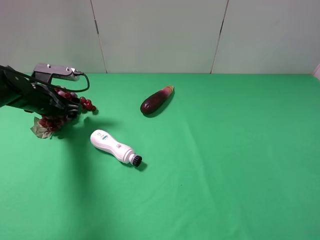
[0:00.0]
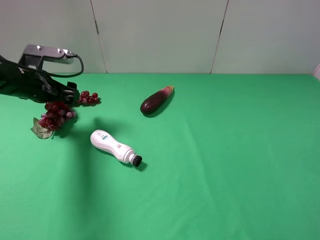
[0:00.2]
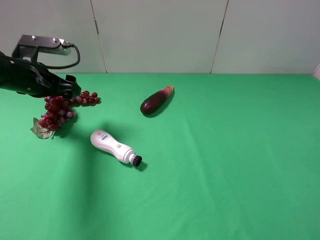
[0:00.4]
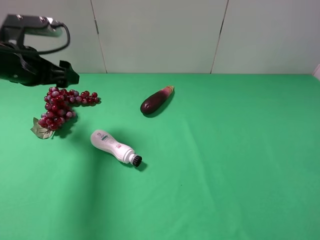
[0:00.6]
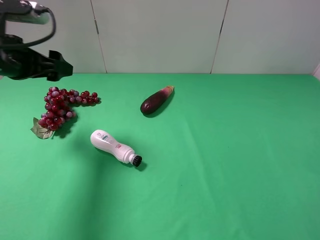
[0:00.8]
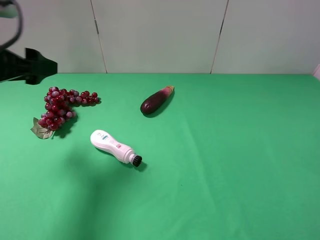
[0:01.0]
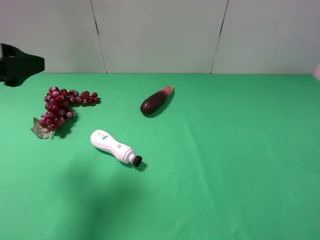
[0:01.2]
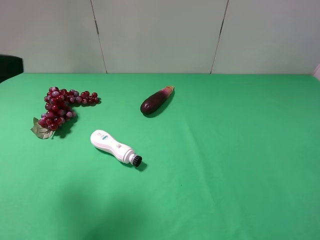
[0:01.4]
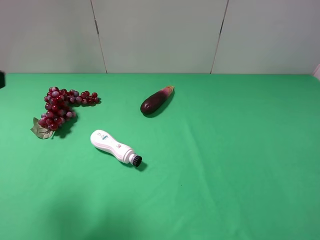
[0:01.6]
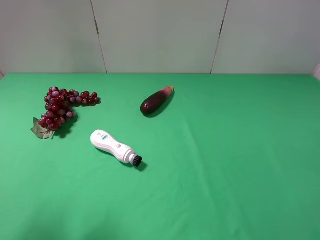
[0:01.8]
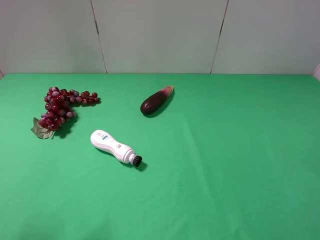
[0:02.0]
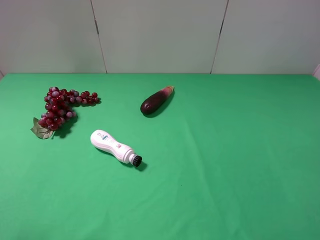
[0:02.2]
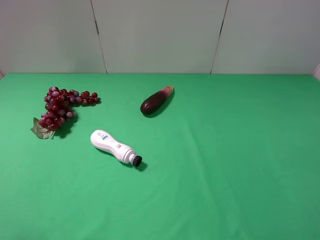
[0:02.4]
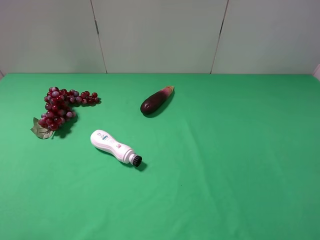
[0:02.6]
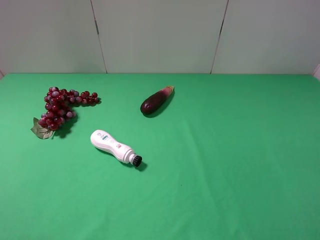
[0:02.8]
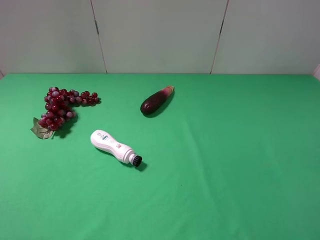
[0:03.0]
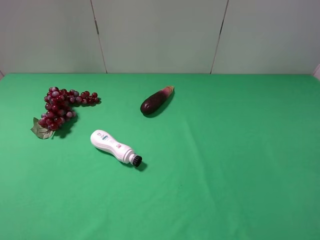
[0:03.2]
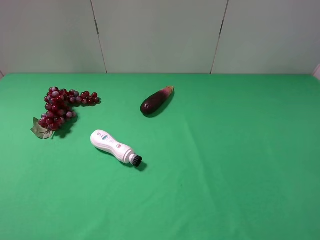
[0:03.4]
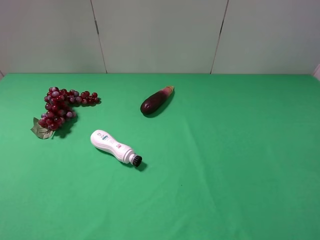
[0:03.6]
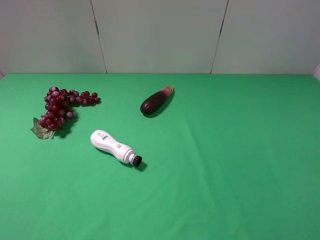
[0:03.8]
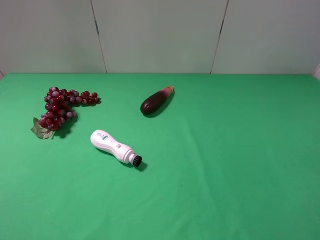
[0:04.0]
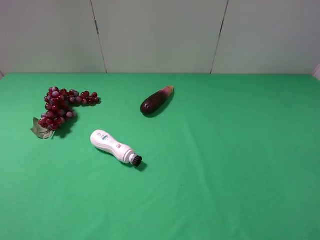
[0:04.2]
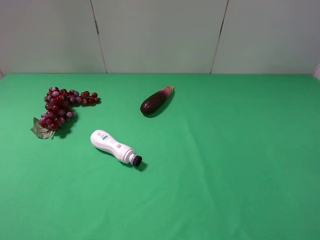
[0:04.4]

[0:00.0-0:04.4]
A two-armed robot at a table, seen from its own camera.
Task of the whole recording: use the right gripper to pick up the item and transfer it from the right gripper to the left gripper.
0:00.0 to 0:01.4: The left gripper moves backward and upward, roughly 25 cm.
0:01.4 to 0:03.0: The left gripper goes approximately 10 cm backward.

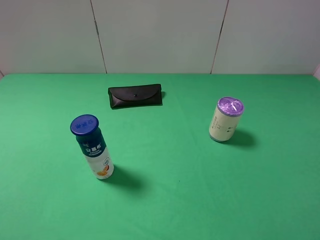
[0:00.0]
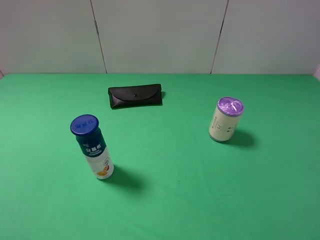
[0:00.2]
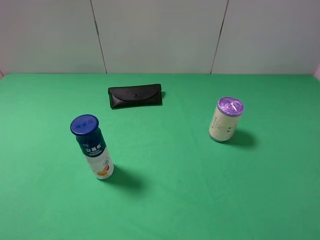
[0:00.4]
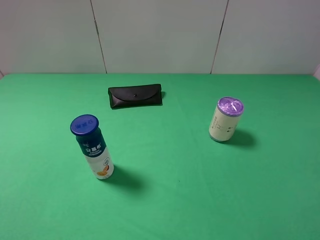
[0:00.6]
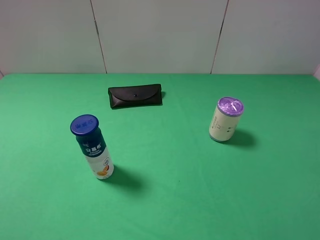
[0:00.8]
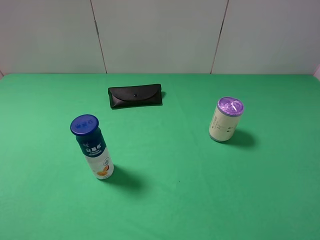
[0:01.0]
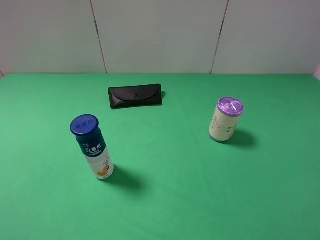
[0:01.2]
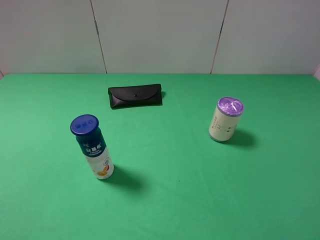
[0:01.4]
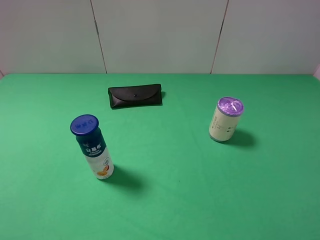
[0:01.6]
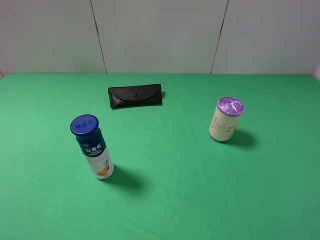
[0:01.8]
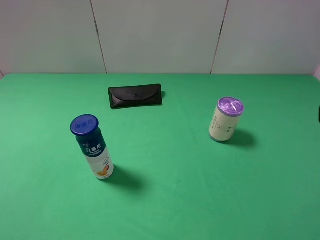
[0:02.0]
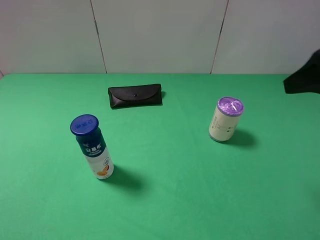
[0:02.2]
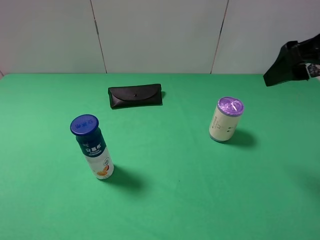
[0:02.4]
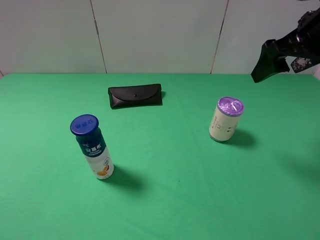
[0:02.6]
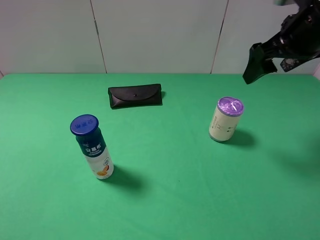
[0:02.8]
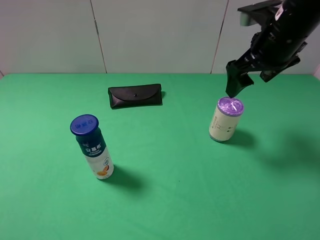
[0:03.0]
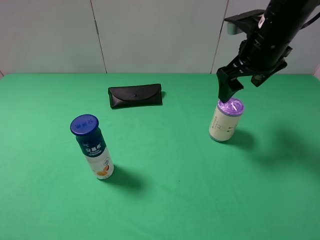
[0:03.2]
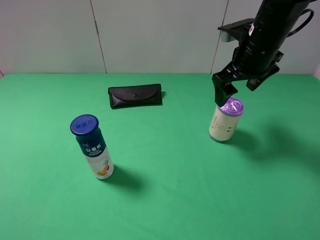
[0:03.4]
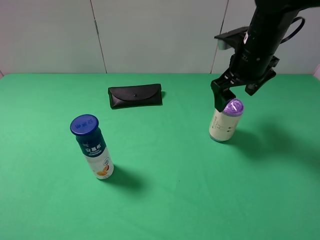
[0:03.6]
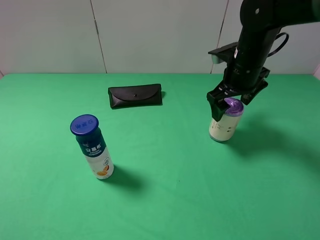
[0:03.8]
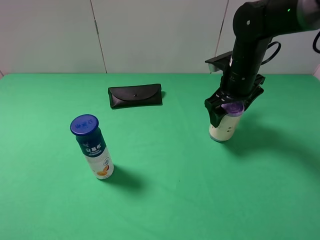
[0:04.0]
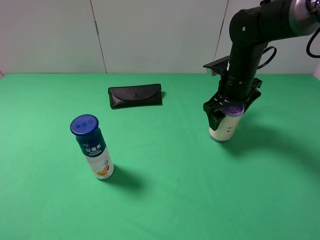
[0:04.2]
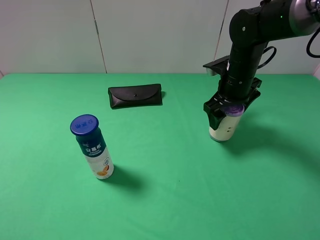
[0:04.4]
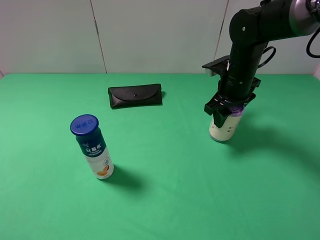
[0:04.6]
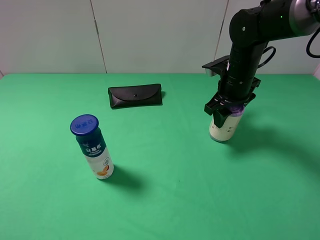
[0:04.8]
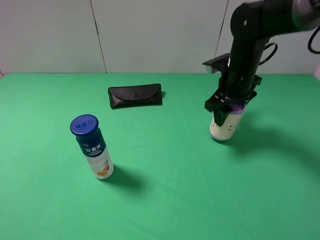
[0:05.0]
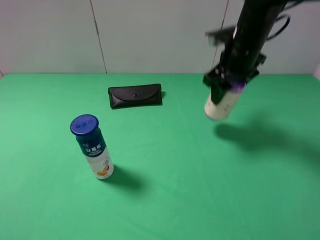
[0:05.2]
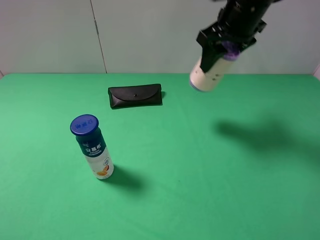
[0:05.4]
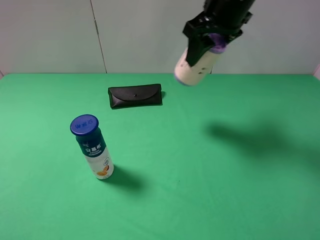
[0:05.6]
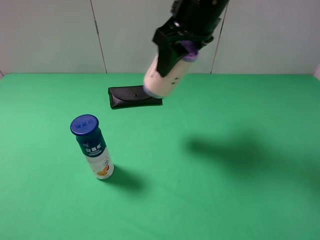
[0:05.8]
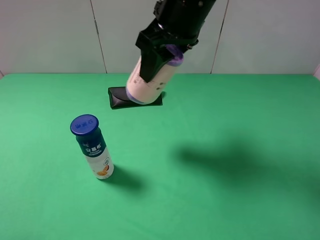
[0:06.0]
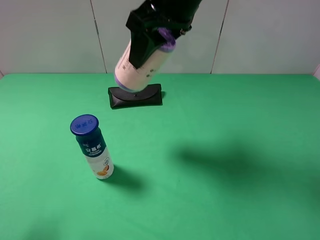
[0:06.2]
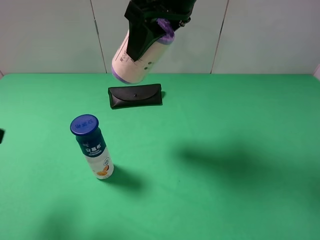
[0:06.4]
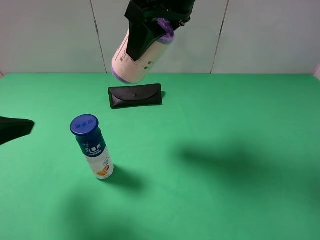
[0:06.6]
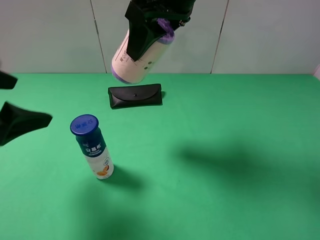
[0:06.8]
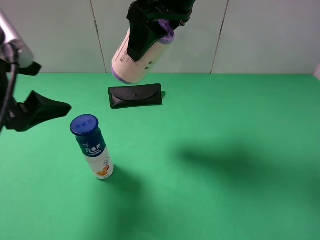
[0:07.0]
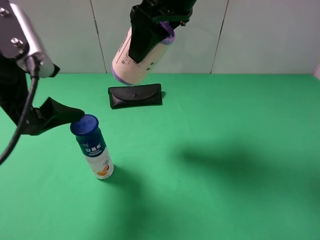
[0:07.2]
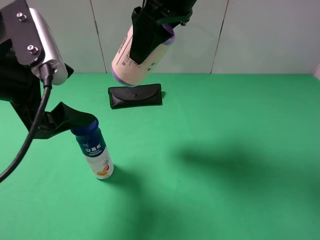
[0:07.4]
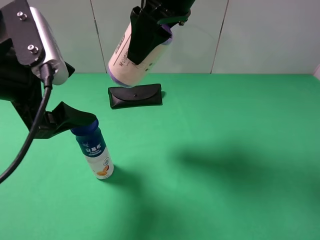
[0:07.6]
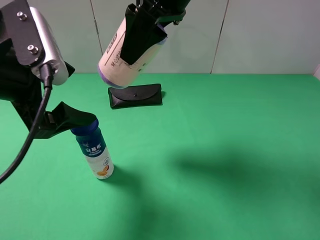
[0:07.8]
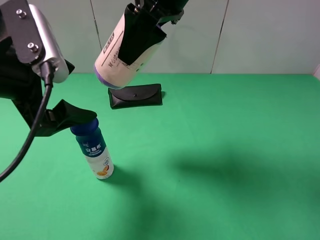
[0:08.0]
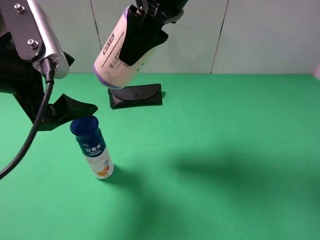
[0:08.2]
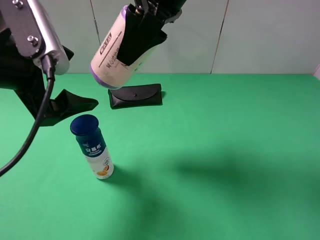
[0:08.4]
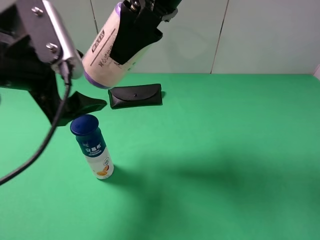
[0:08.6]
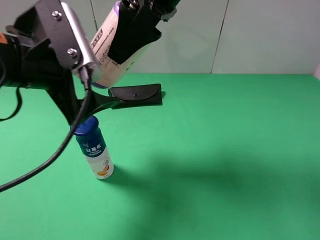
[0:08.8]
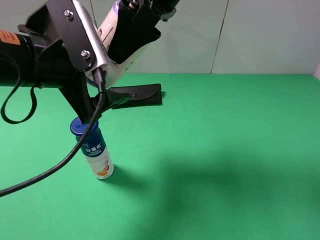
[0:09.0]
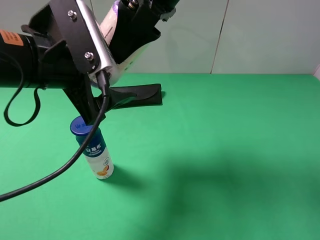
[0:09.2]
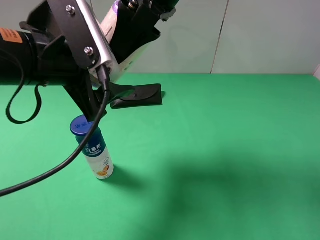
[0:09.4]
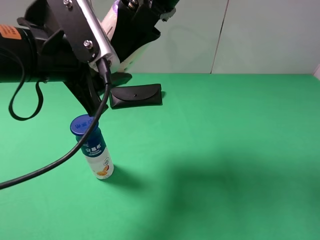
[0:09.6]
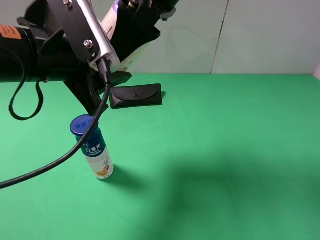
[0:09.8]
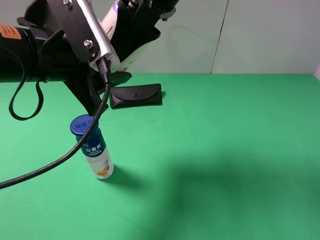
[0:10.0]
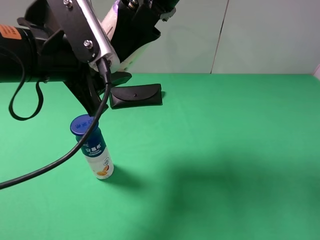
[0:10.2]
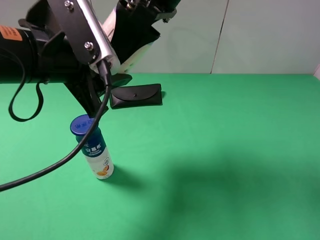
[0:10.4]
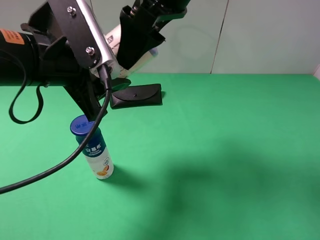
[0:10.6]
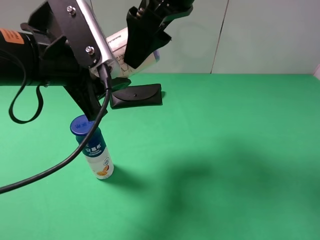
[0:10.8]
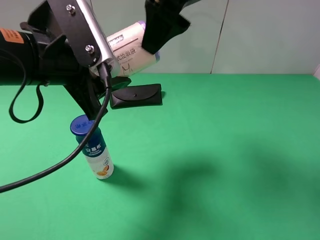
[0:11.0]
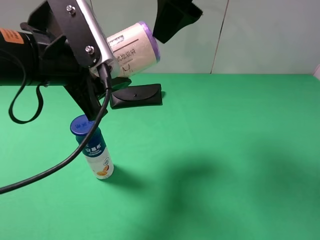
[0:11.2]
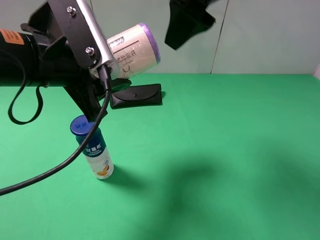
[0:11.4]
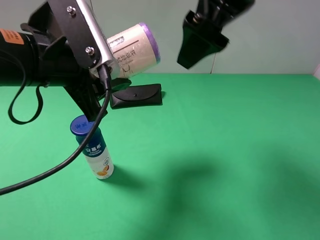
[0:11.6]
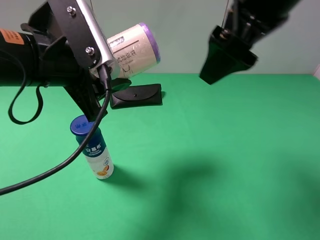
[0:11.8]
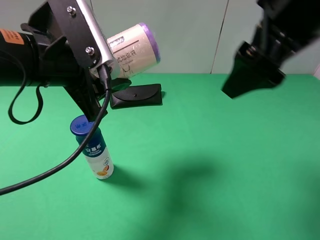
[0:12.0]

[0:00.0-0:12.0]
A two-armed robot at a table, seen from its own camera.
Task of the whole recording: use the right gripper to pick up the item and transfer it from the right gripper to the left gripper.
Step, 0:00.0 to 0:04.8: Use the right gripper to grab the purple garbage bag on the right side of the table.
Step, 0:05.0 to 0:11.2: Pass the purple garbage bag to the left gripper.
0:00.0 to 0:01.6: Neither gripper changes place.
0:01.6 to 0:03.0: The right gripper heads forward, covering approximately 30 cm.
0:03.0 to 0:04.4: The right gripper goes some 10 cm downward.
0:04.4 to 0:06.0: The right gripper is displaced upward and to the left by about 20 cm, and closes its fingers.
0:06.0 to 0:07.6: The left gripper travels forward and to the right by some 20 cm.
0:09.0 to 0:10.4: The left gripper closes up.
0:10.4 to 0:12.0: The right gripper shifts some 15 cm to the right and backward, and opens up.

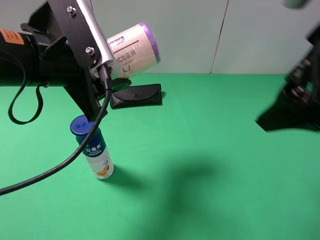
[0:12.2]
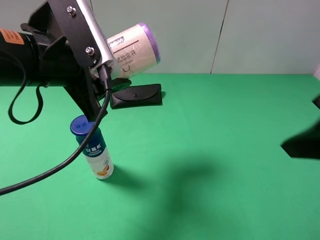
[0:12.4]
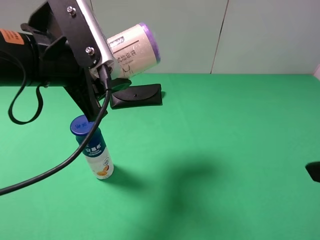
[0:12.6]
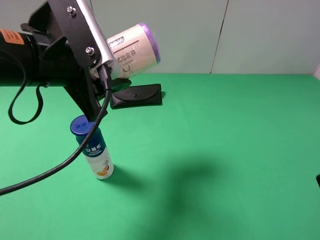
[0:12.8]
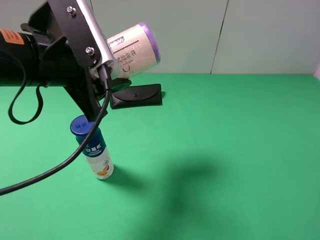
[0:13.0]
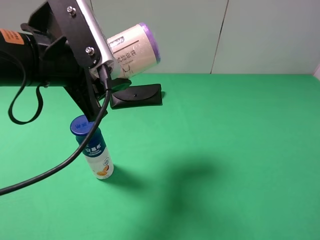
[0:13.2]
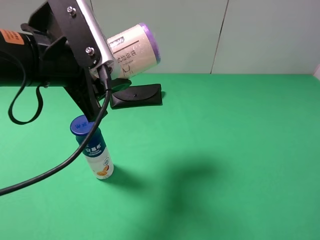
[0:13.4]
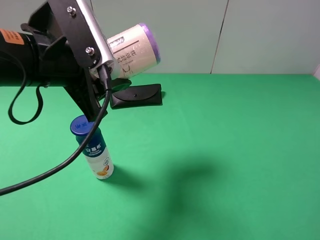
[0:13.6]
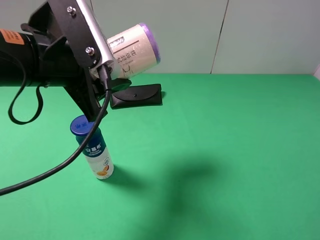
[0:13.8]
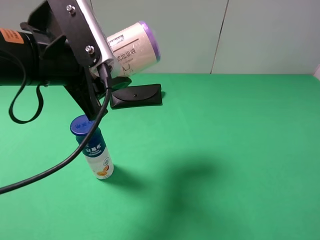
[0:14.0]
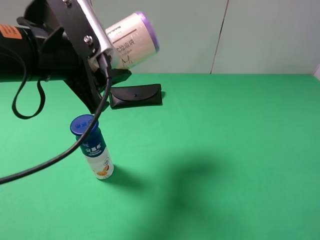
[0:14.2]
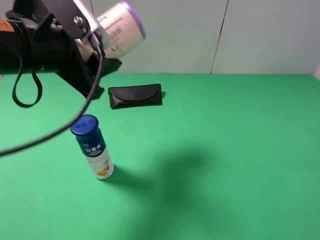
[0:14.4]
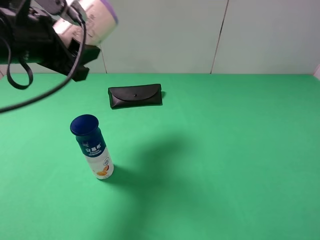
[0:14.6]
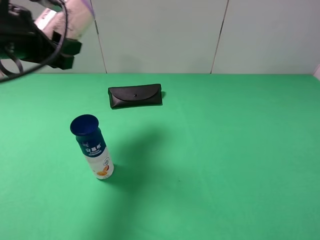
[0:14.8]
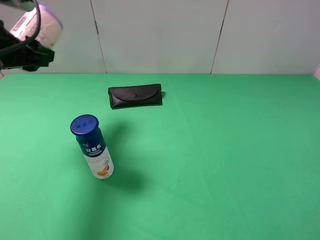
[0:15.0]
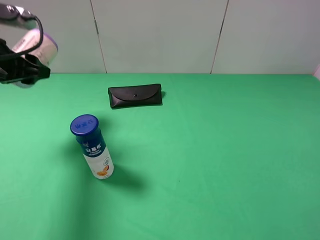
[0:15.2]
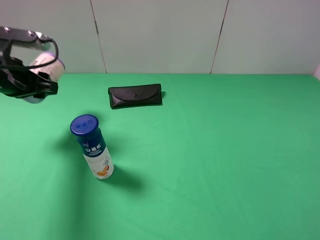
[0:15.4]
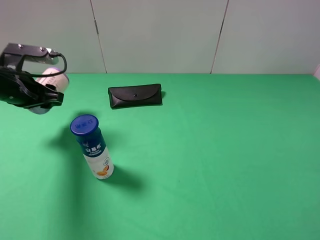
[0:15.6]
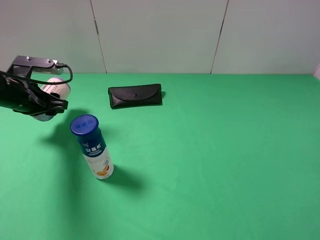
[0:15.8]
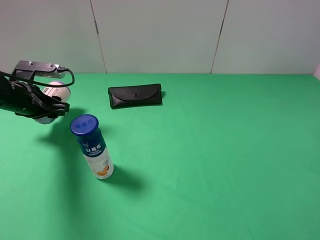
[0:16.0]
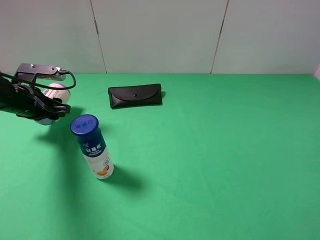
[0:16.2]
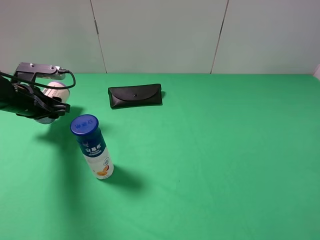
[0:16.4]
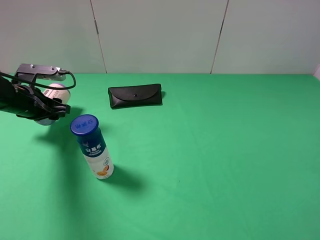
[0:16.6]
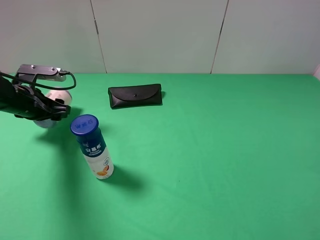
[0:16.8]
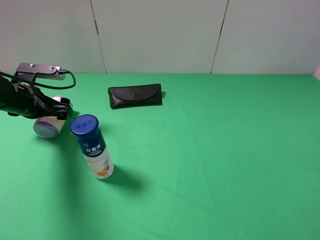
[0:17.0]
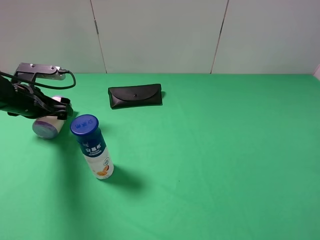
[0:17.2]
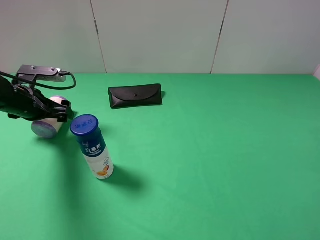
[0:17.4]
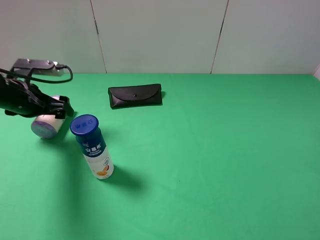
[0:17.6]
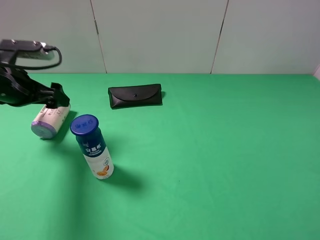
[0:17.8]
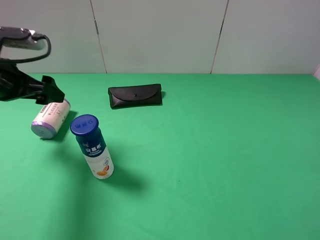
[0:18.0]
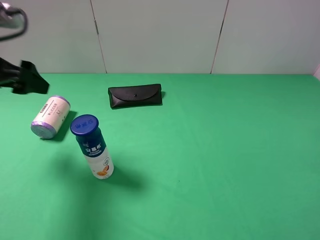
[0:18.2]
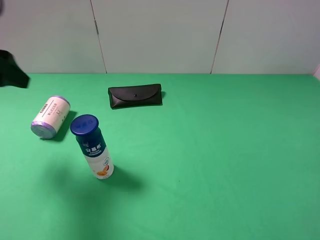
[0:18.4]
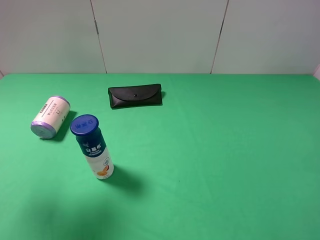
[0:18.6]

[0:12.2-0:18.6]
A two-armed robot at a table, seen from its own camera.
Task of the whole recording: use the right gripper to pick up the item and transfer it from the right gripper to the left gripper.
Step, 0:12.2 to 0:17.0: The left gripper places purple garbage bag on the left side of the table.
0:12.2 to 0:13.8: The right gripper heads backward, to the right and downward, covering some 20 cm.
0:13.8 to 0:15.4: The left gripper travels to the left, forward and downward by some 20 cm.
0:15.4 to 0:17.0: The left gripper is displaced downward by roughly 5 cm, and opens.
0:17.0 to 0:18.6: The left gripper moves upward and backward, some 30 cm.
